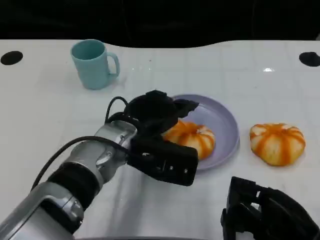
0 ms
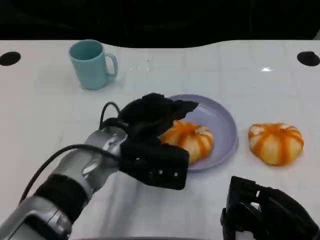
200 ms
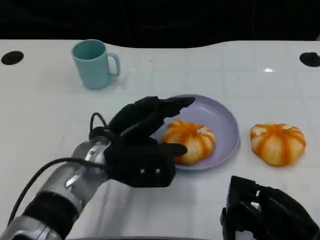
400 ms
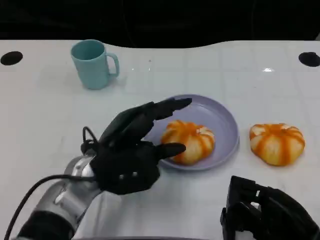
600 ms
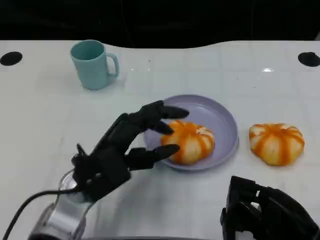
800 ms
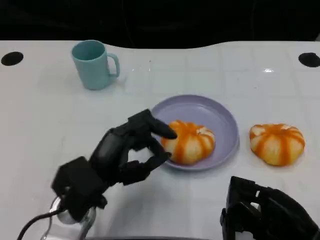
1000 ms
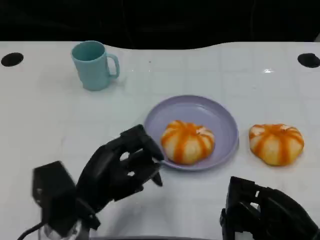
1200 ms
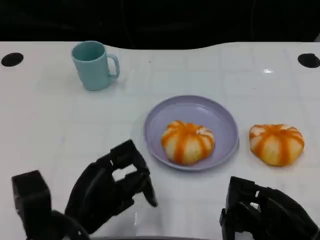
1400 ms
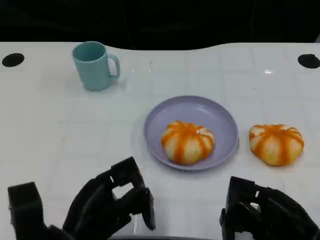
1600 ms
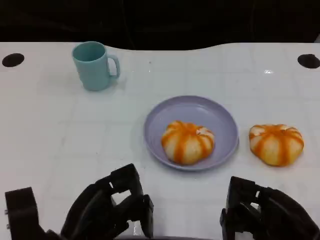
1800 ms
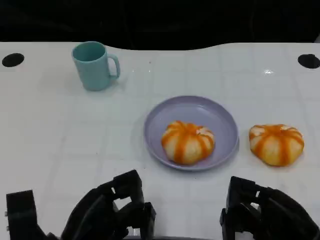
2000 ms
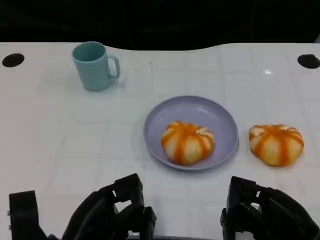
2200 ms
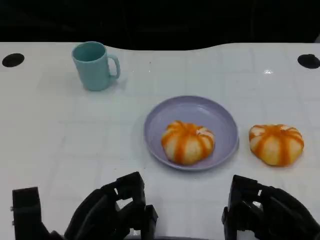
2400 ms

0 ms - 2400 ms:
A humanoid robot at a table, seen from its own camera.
Task of the whole recording: Grasp the bread from the table and place it into the plate.
0 ms - 1200 ms: The left hand moves backward and to the left, about 15 cm.

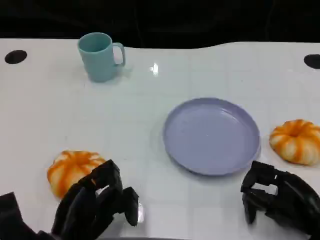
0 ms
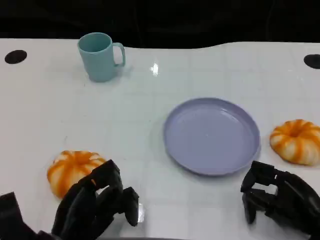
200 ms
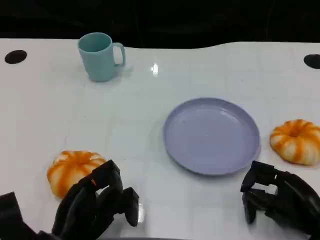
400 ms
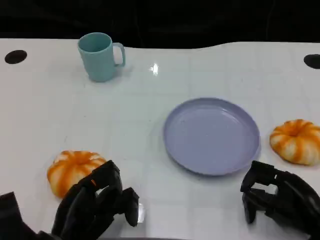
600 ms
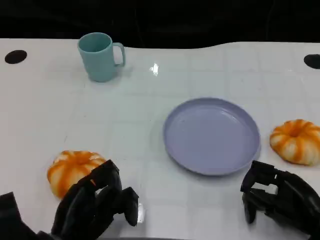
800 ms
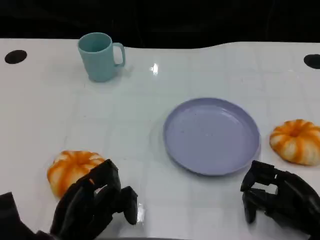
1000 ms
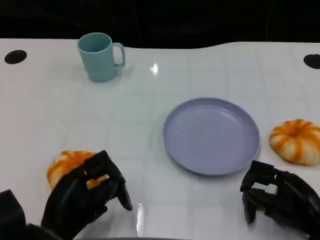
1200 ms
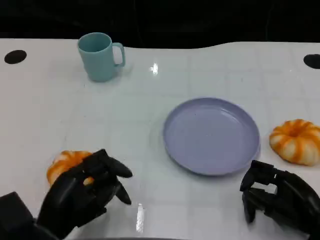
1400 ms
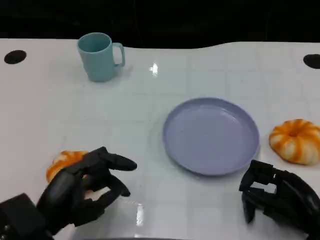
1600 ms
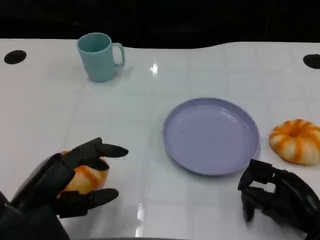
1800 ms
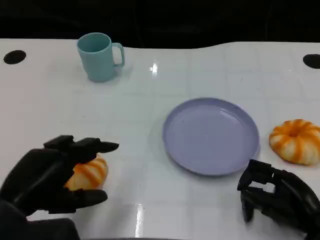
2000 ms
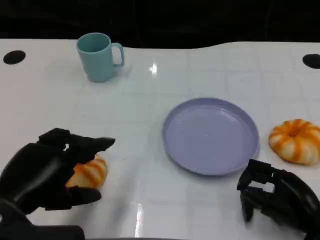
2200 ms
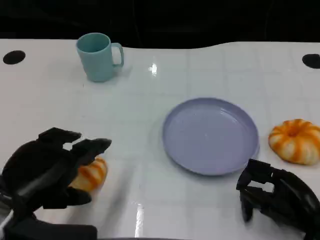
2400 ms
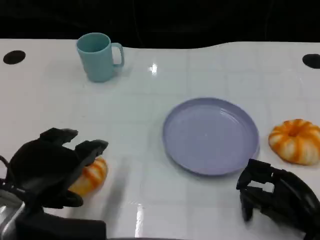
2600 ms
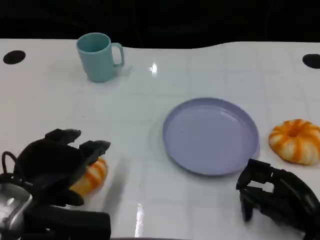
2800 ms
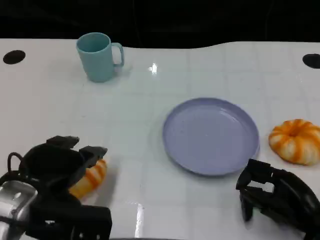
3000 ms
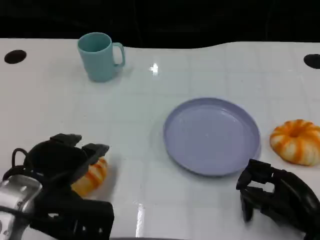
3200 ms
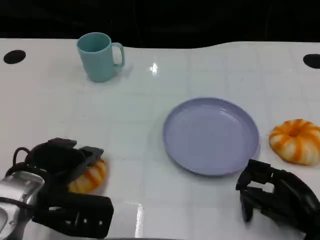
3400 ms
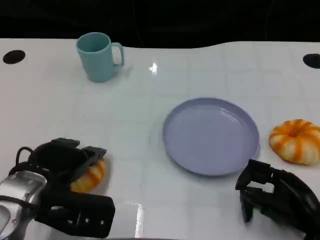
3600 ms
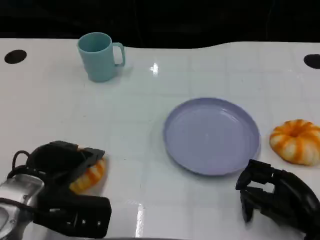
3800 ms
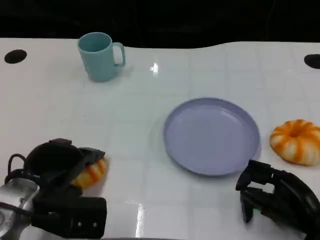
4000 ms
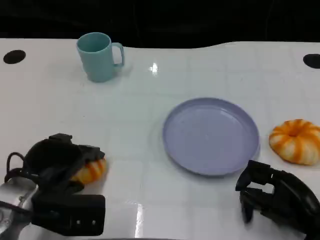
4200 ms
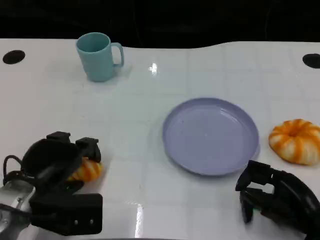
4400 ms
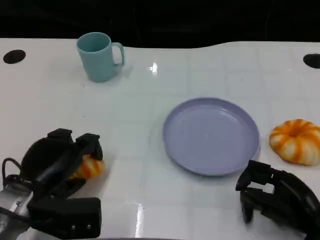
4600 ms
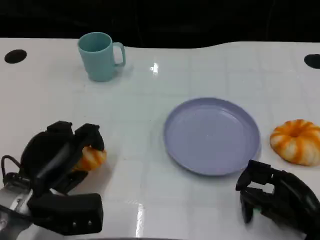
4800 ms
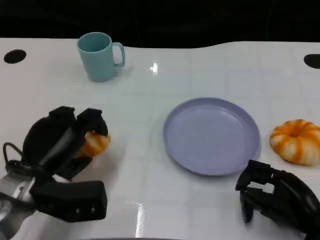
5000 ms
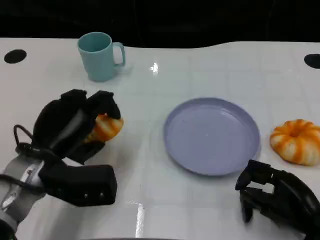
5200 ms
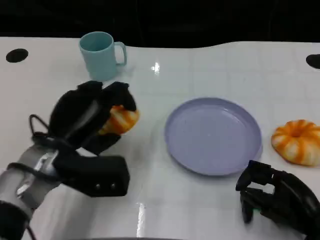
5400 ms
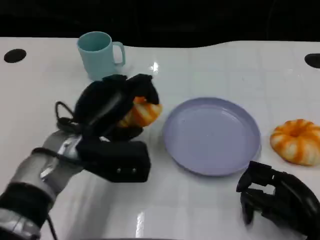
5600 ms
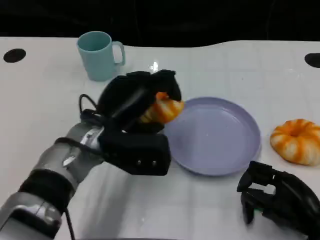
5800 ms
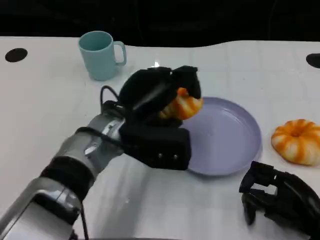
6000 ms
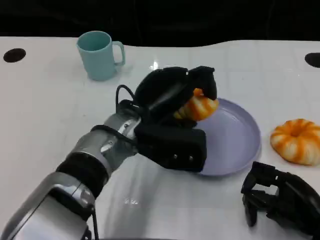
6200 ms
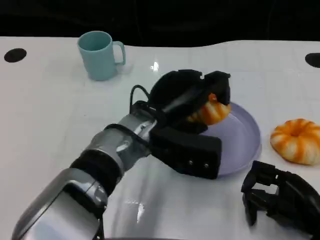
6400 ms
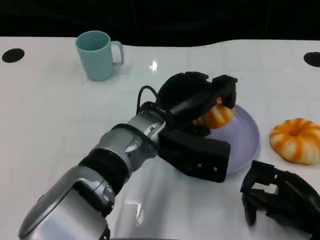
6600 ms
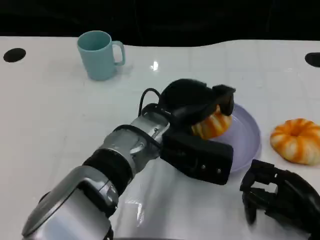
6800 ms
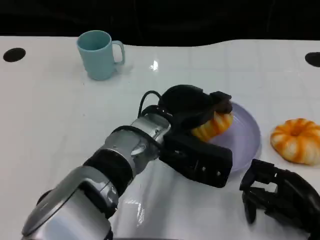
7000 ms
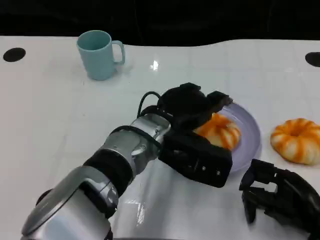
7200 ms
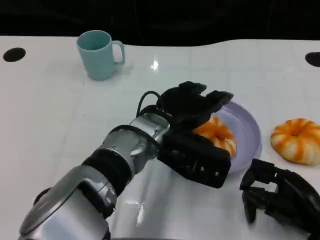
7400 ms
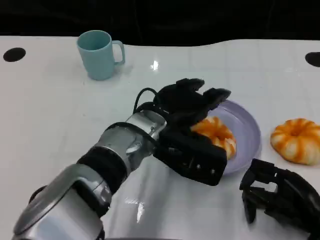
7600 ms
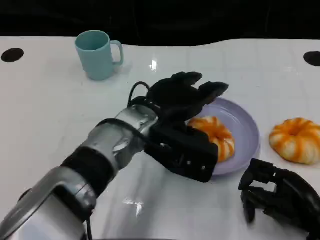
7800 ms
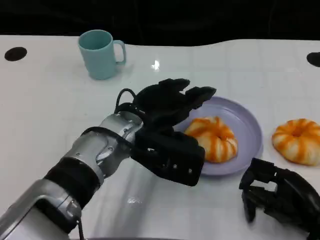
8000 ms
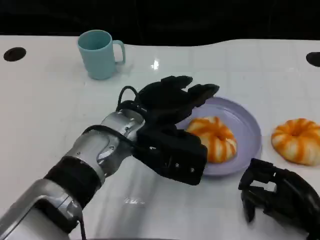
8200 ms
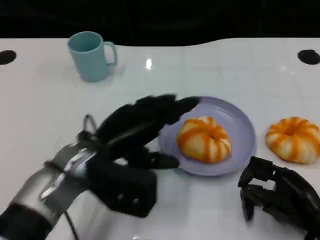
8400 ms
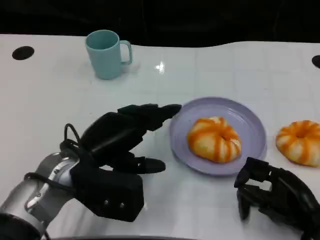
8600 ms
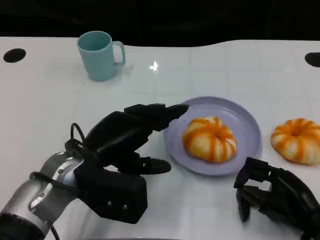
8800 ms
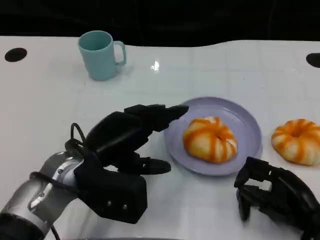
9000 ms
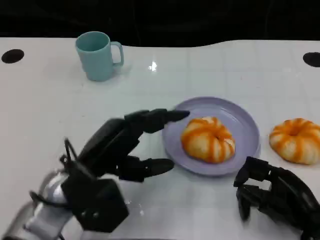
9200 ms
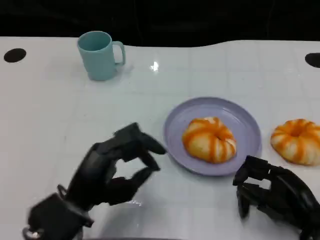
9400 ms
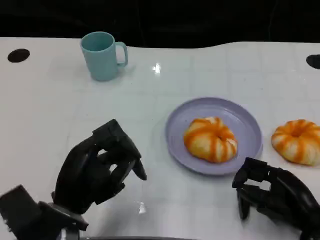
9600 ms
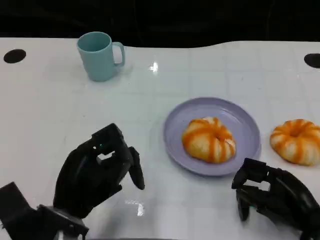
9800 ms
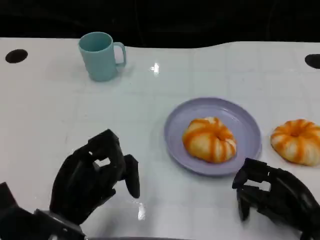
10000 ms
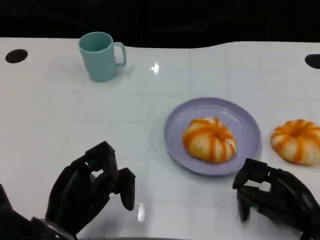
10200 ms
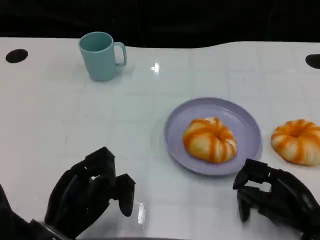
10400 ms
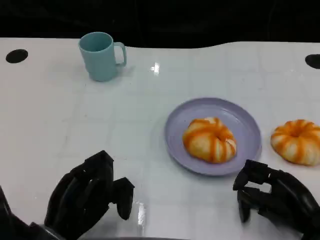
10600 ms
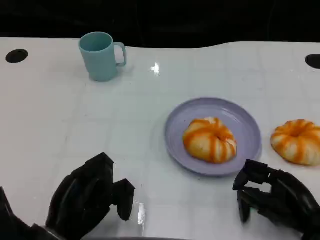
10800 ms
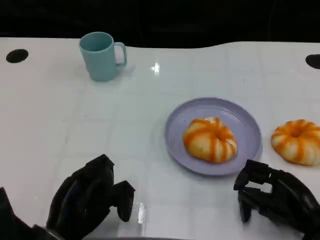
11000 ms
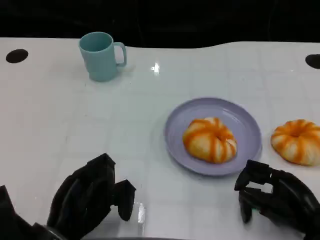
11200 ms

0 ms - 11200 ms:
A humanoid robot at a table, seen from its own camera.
Task of the whole recording: Grasp the bread from the table and place it into the plate.
0 ms - 1600 ms: The left hand moves upward, roughly 5 cm.
1600 ms - 3200 ms: The left hand changes place by roughly 5 cm.
4800 ms - 6400 ms: The left hand is displaced to the right by some 20 cm.
8000 ms - 9600 ms: The left hand heads backward, to the left and downward, covering some 15 cm.
9600 ms - 11200 ms: The left hand shifts by some 5 cm.

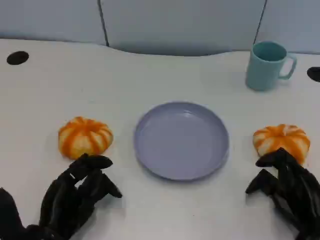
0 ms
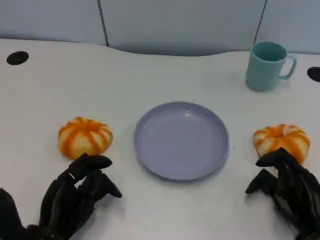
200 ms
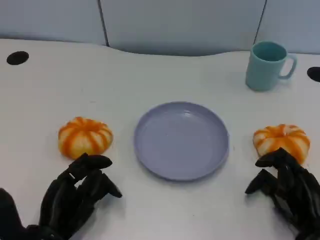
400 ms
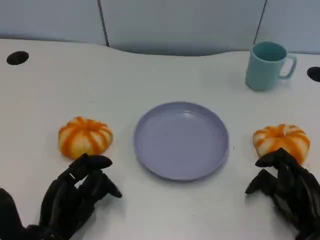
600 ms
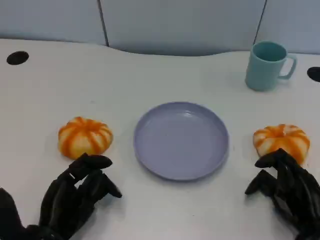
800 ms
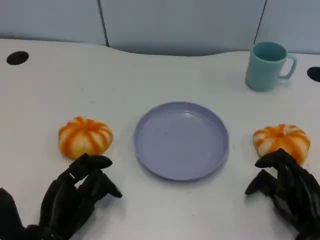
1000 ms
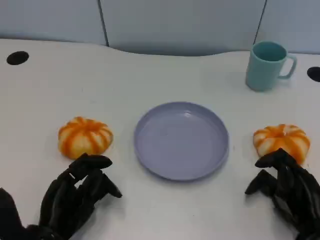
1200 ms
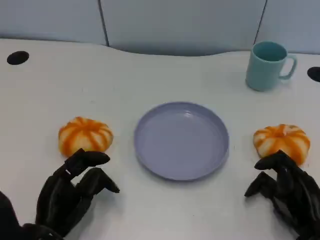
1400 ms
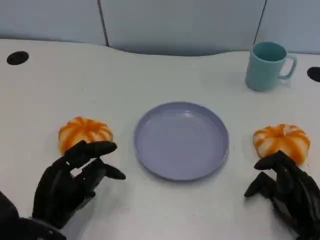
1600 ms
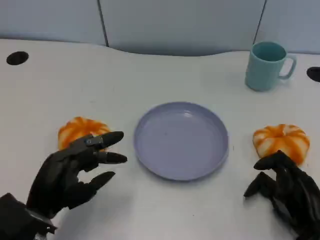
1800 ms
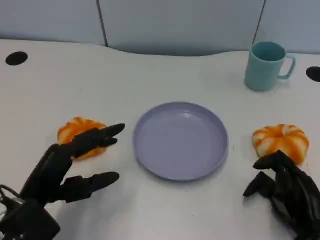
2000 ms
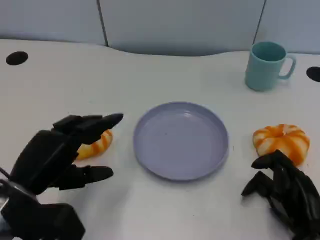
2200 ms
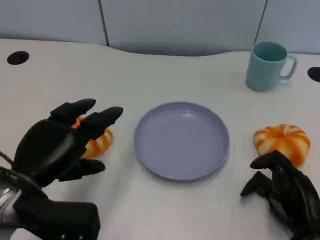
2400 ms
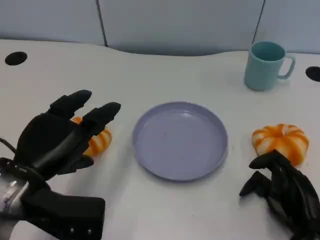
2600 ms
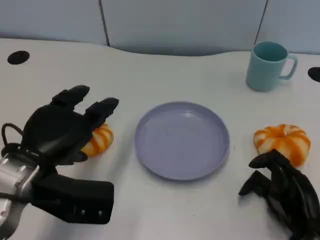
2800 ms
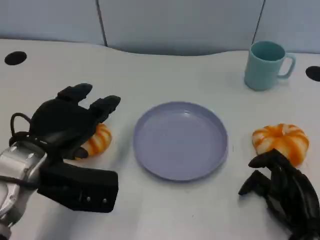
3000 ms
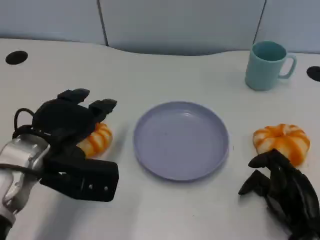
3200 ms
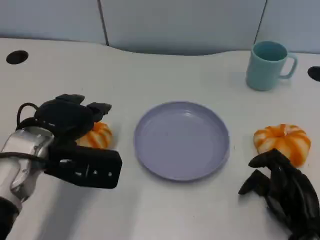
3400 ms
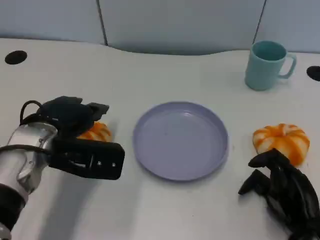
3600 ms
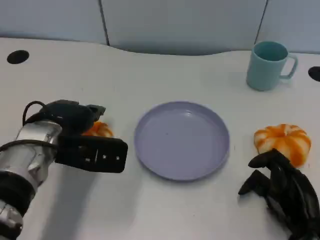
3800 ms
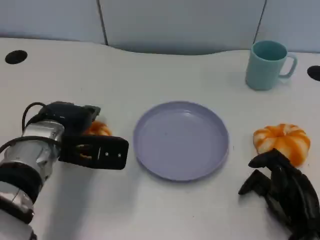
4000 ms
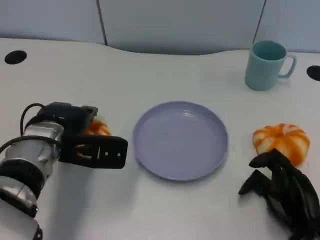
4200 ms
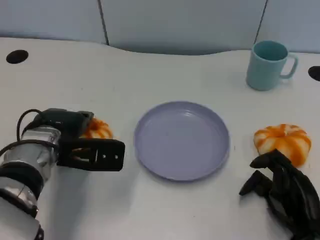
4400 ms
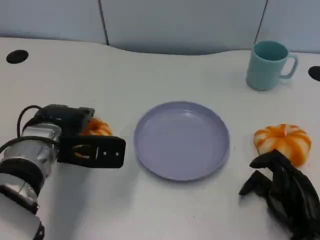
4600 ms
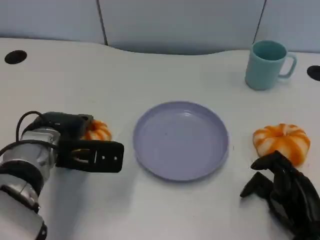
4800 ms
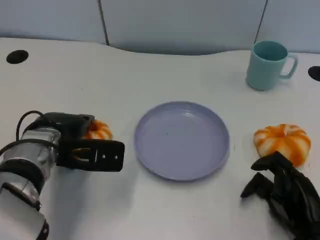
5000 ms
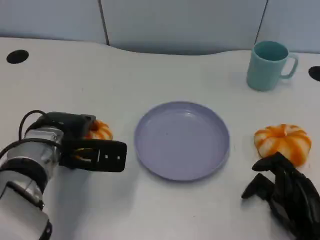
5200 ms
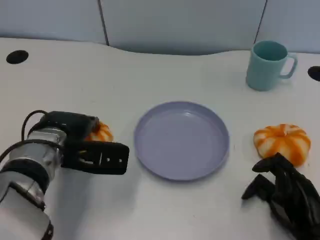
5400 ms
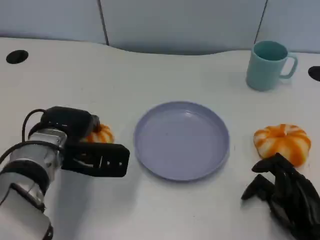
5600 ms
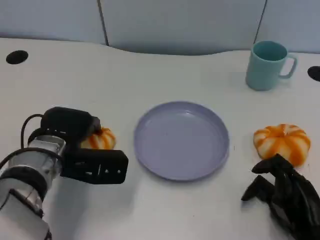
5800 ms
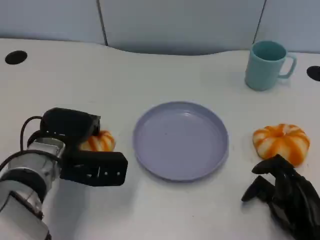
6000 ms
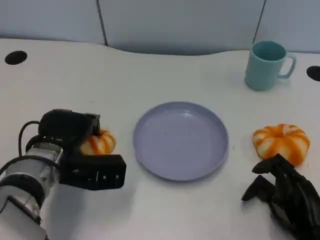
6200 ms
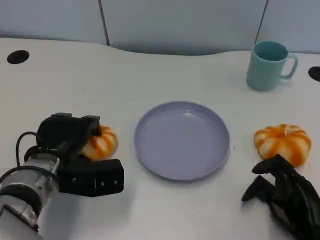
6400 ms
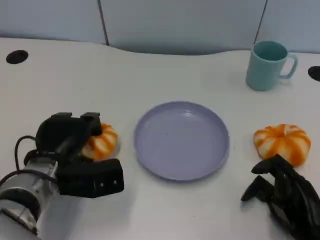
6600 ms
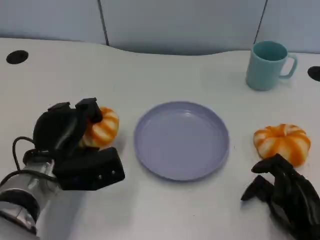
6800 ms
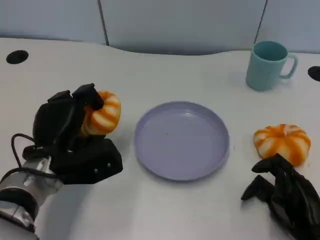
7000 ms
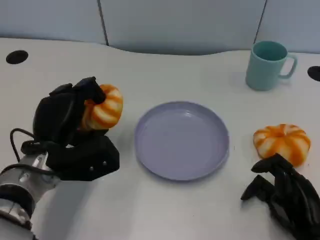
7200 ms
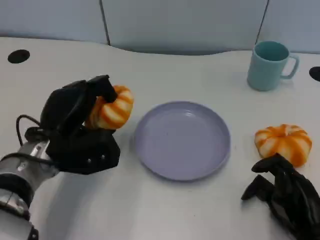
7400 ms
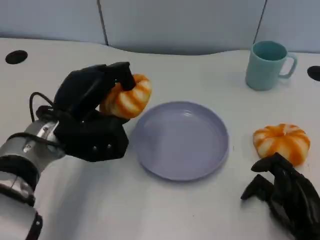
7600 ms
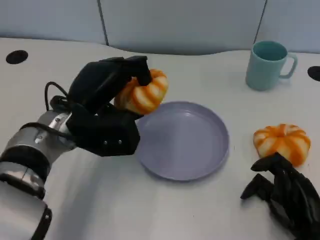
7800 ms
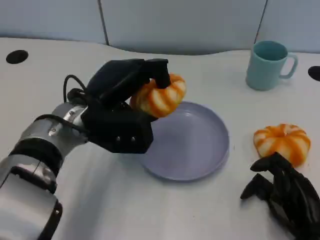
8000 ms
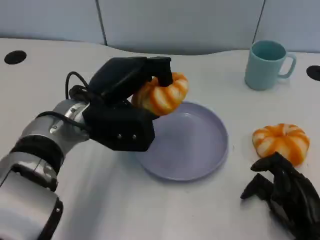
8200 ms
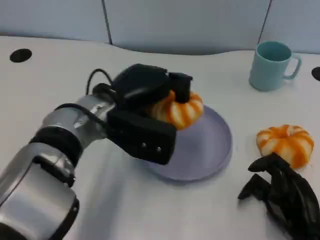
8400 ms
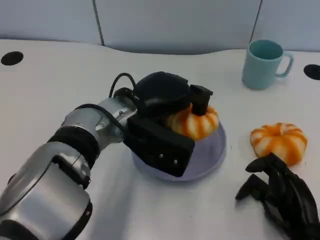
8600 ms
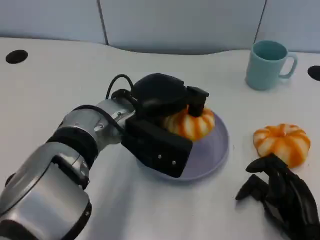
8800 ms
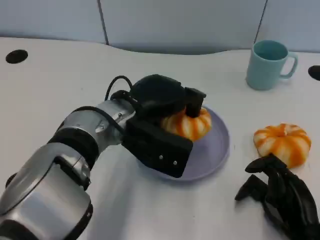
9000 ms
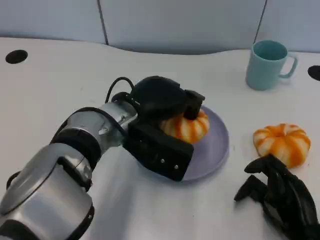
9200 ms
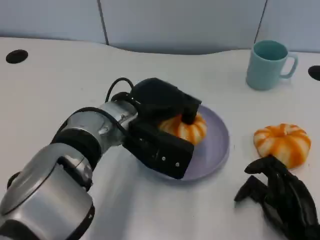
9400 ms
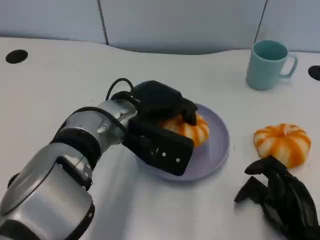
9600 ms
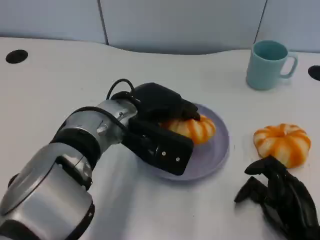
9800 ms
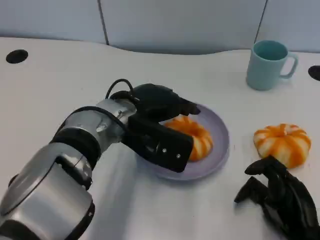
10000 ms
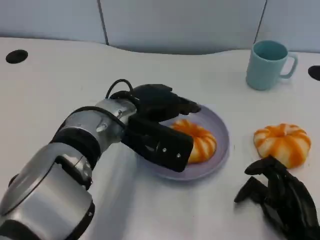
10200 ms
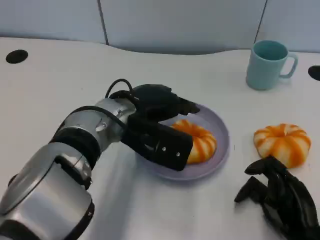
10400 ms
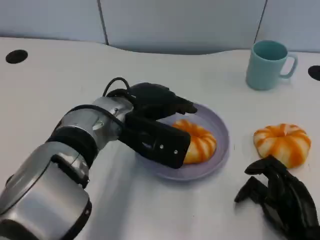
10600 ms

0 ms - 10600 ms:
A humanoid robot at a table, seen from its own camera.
Task of the whole recording: Grasp the bread from the table and place it into the plate.
1600 ms - 3000 ms: The left hand travels upward and forward by roughly 10 cm.
3000 ms - 4600 ms: The left hand moves forward, roughly 5 cm.
4600 ms - 6000 ms: There are only small adjustments of the hands.
6000 ms - 7600 ms: The left hand shifts by approximately 5 cm.
7600 ms - 9000 ms: The left hand travels to the right by roughly 10 cm.
9000 ms - 10600 ms: There are only small adjustments of the hands.
